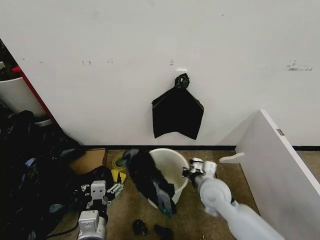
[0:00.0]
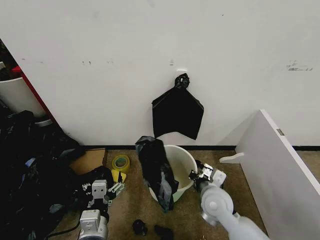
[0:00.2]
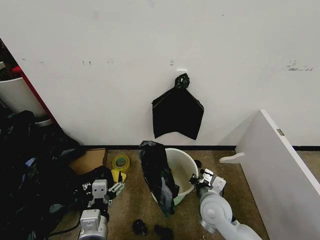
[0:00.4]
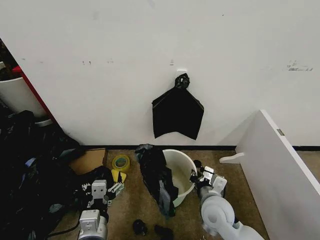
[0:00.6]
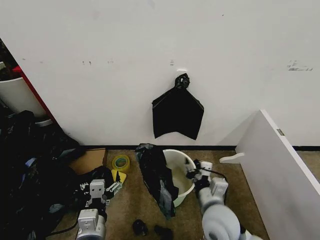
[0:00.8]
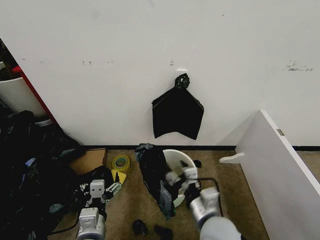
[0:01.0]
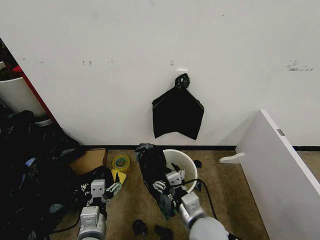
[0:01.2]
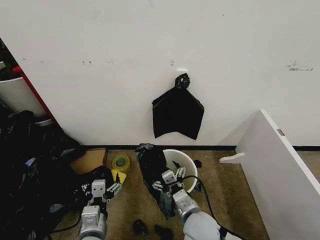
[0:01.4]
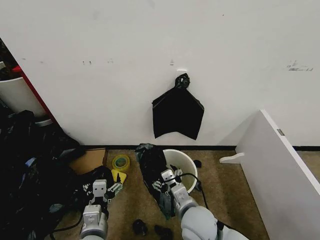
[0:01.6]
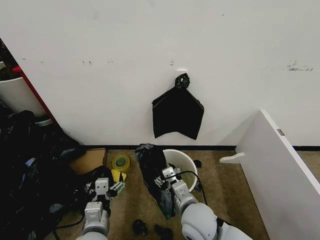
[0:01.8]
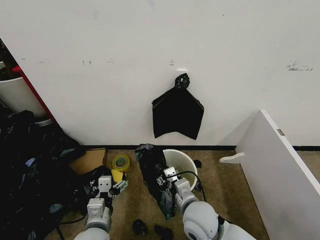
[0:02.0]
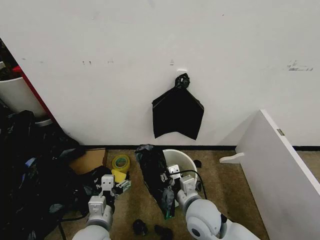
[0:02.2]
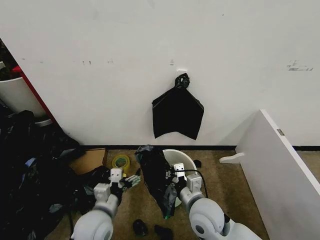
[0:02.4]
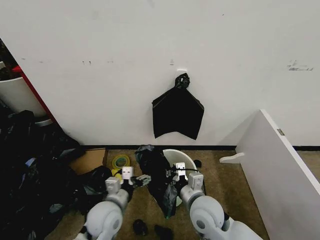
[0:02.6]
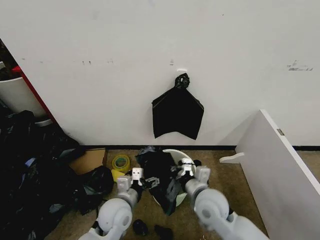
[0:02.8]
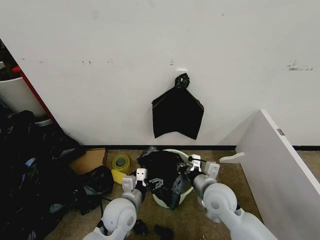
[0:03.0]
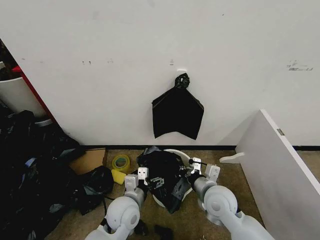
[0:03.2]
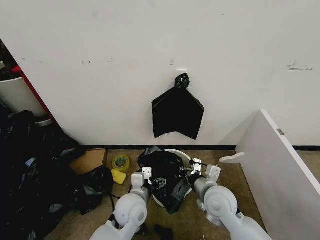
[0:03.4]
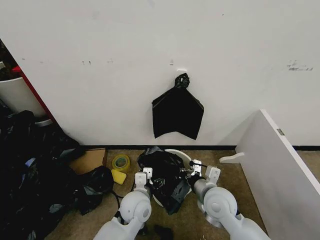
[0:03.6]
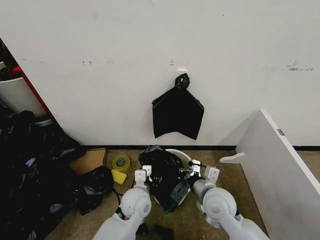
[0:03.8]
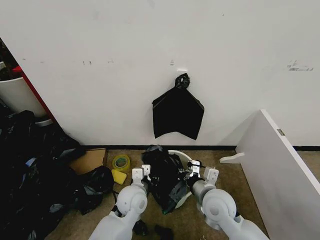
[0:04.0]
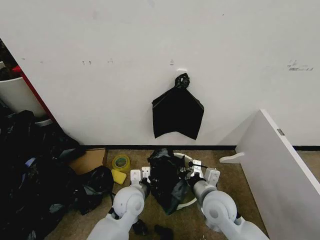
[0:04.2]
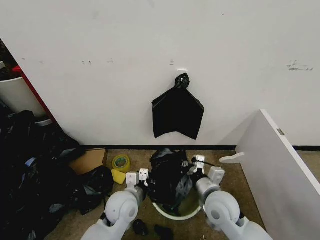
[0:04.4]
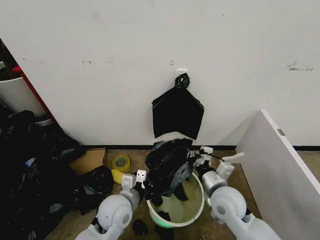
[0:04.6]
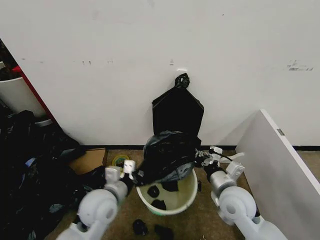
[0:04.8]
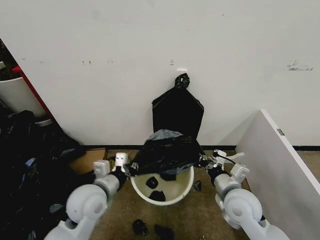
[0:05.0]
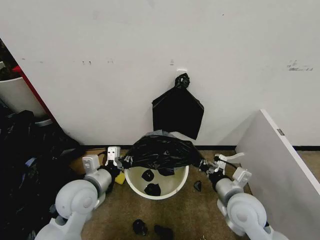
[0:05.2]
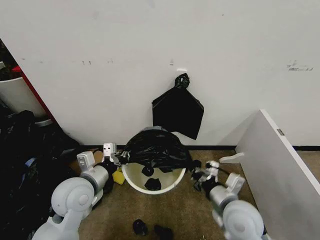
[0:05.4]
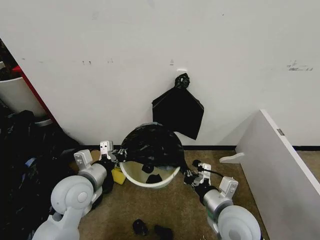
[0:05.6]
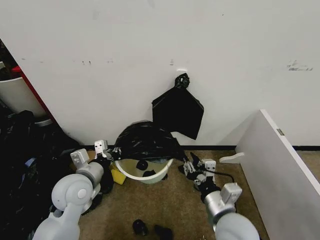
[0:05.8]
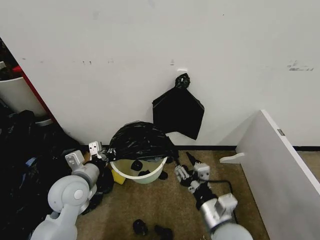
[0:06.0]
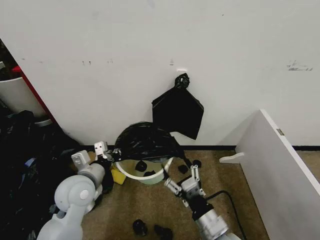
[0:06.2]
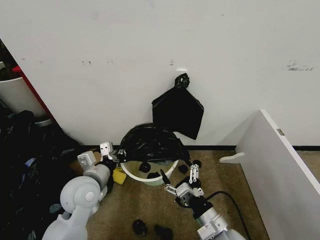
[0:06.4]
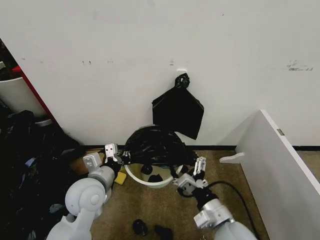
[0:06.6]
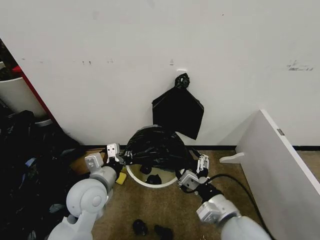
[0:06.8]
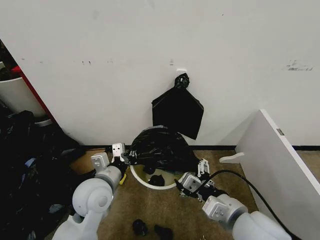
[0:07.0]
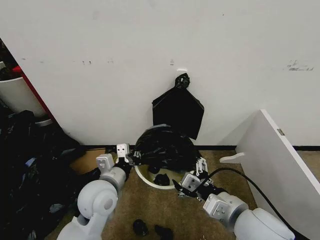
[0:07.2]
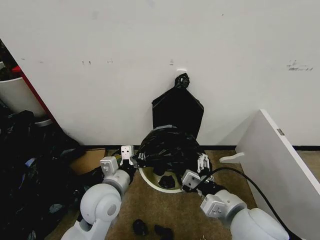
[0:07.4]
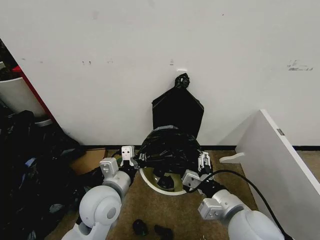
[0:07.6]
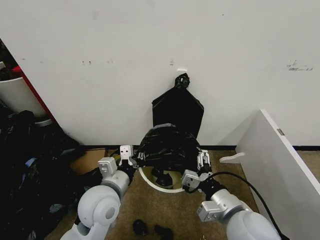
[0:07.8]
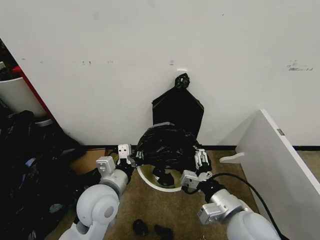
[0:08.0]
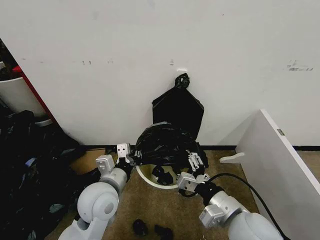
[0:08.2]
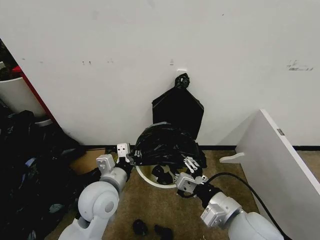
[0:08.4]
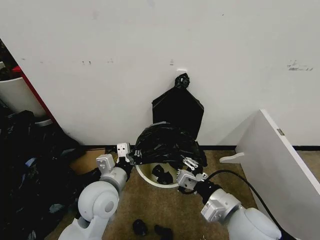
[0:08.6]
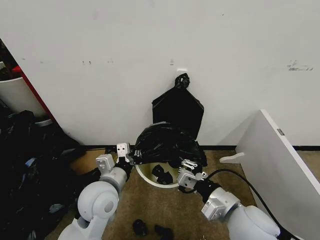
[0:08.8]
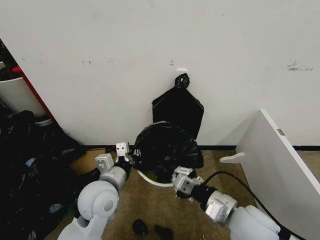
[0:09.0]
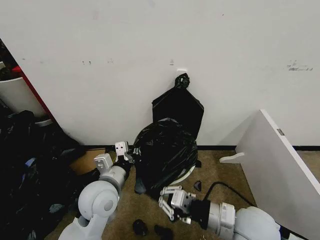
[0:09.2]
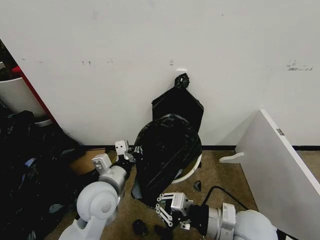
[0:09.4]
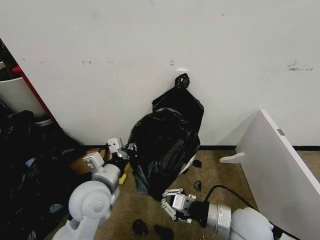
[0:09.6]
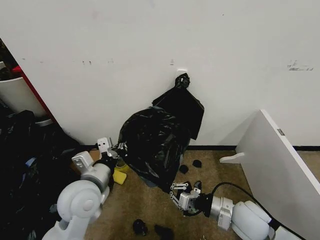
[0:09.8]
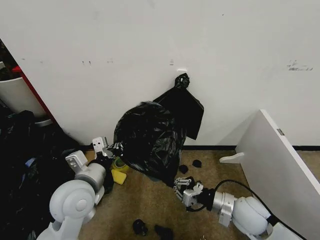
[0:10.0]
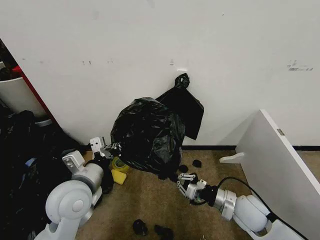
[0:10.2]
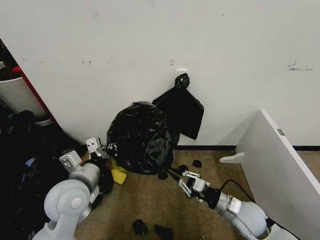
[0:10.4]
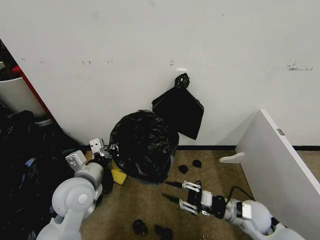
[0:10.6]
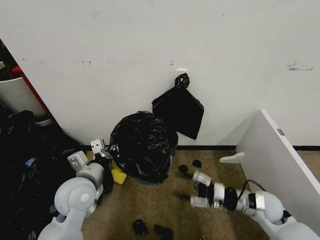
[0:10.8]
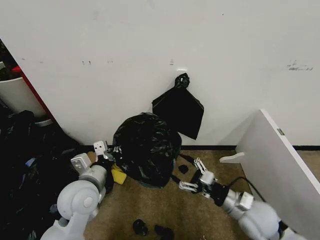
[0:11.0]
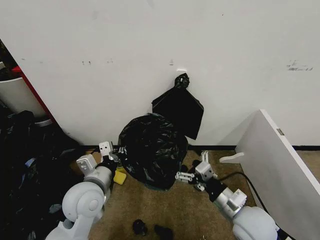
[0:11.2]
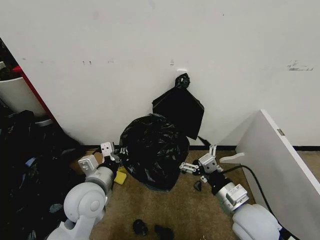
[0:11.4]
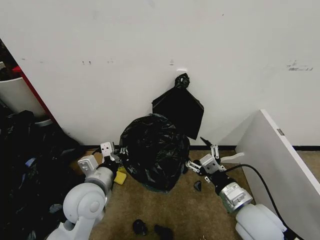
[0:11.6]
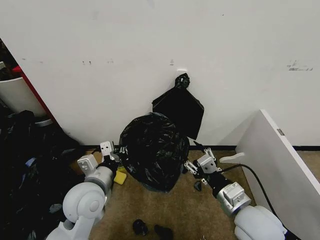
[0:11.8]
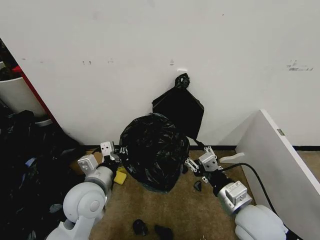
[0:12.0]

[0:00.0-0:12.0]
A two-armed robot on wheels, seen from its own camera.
Task of the whole recording: Place the garbage bag over the trash bin.
0:00.0 to 0:01.6: The right gripper moves backward and to the left, approximately 10 cm, and opens its fingers.
0:01.6 to 0:03.0: The left gripper goes roughly 10 cm forward and to the right, while the right gripper heads to the right and forward, covering some 10 cm, and closes up.
0:03.0 to 0:04.4: The left gripper closes its fingers.
0:04.4 to 0:06.0: The right gripper shifts approximately 10 cm backward, and opens its fingers, while the left gripper shifts roughly 15 cm to the left and upward.
0:06.0 to 0:07.6: The right gripper travels upward by about 5 cm, and opens its fingers, while the left gripper moves to the right, approximately 10 cm.
0:07.6 to 0:09.0: The right gripper closes.
0:09.0 to 0:10.4: The right gripper travels downward, to the right and forward by about 15 cm. The left gripper shifts about 5 cm to the left.
0:10.4 to 0:12.0: The right gripper goes about 15 cm upward, and opens its fingers.

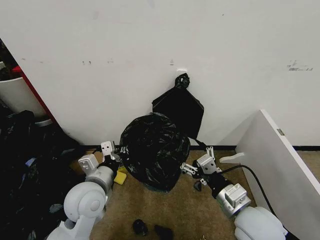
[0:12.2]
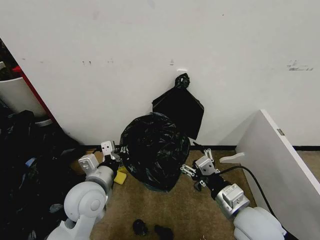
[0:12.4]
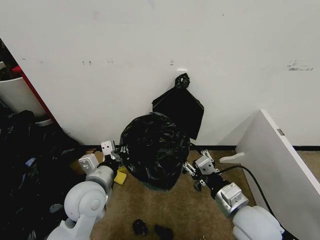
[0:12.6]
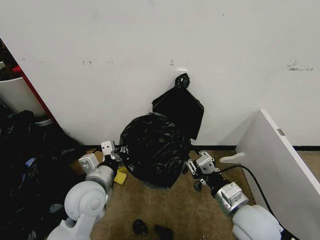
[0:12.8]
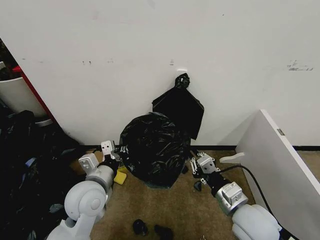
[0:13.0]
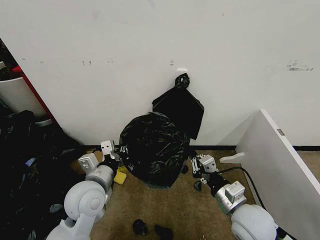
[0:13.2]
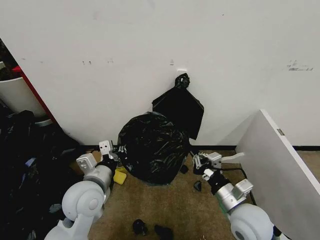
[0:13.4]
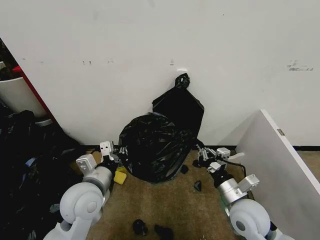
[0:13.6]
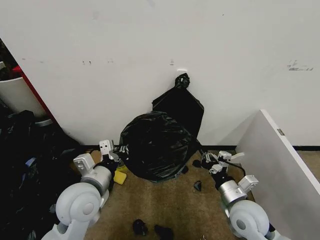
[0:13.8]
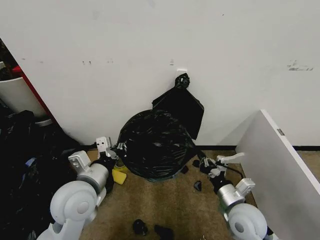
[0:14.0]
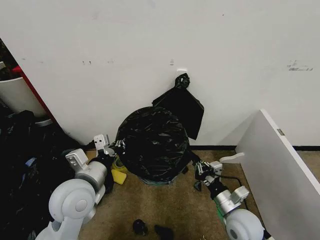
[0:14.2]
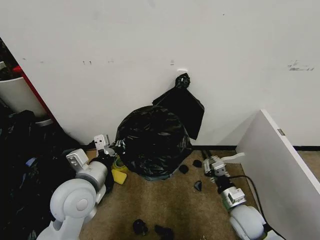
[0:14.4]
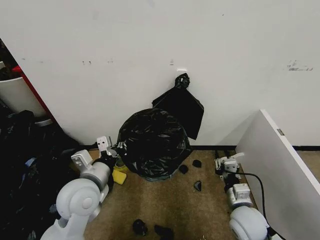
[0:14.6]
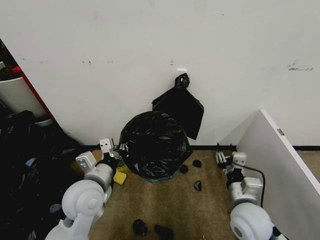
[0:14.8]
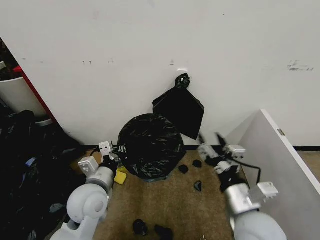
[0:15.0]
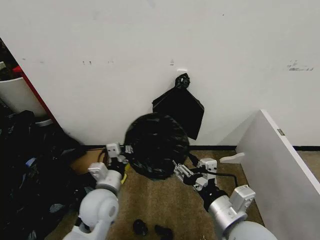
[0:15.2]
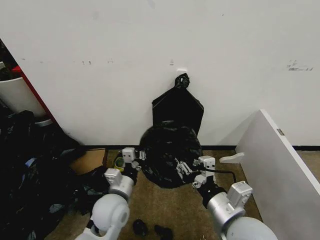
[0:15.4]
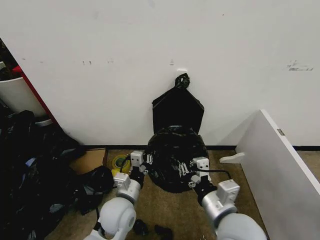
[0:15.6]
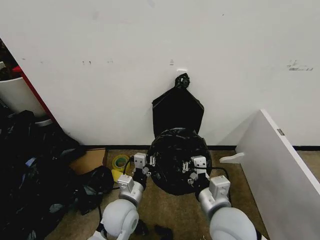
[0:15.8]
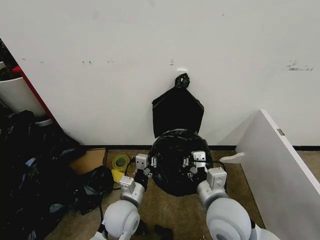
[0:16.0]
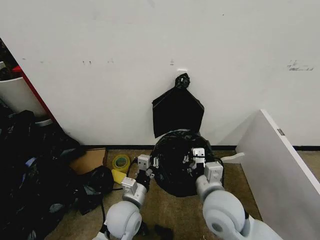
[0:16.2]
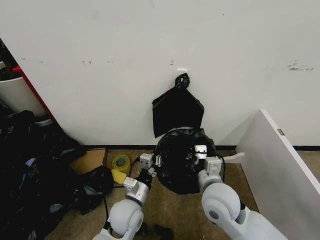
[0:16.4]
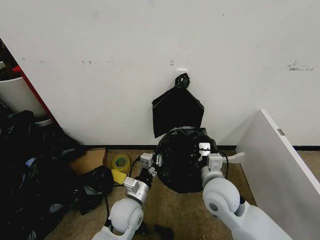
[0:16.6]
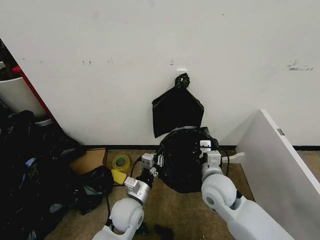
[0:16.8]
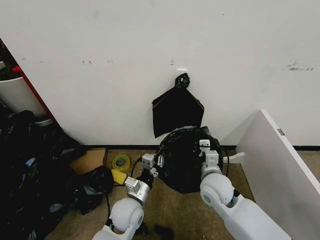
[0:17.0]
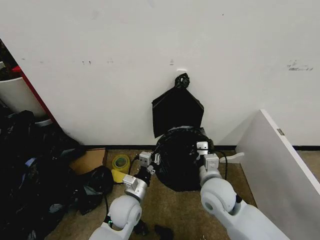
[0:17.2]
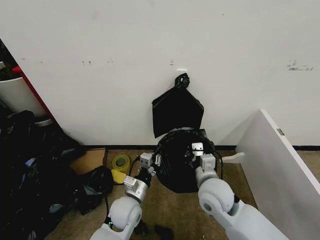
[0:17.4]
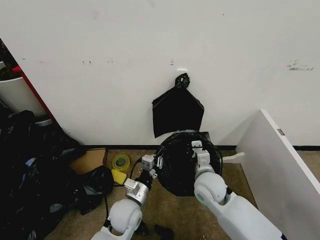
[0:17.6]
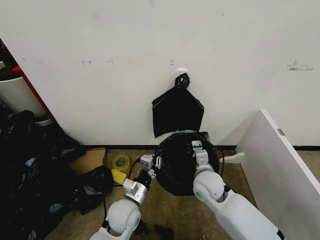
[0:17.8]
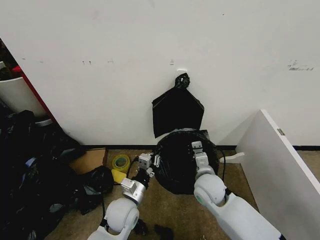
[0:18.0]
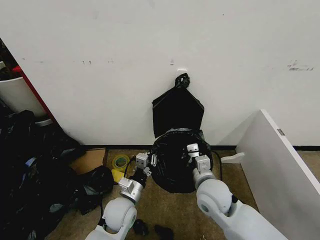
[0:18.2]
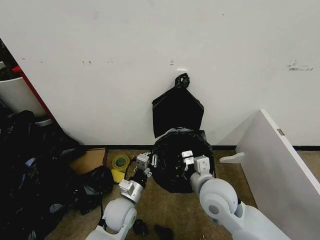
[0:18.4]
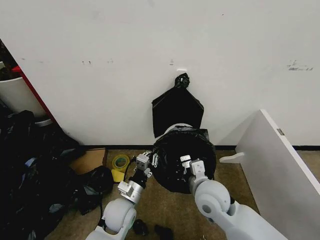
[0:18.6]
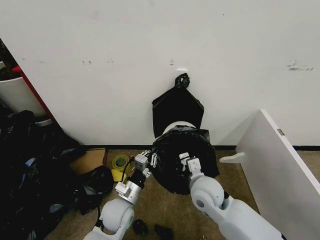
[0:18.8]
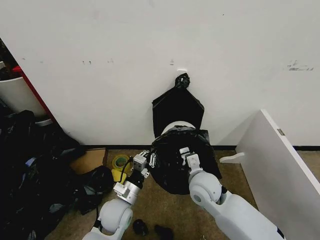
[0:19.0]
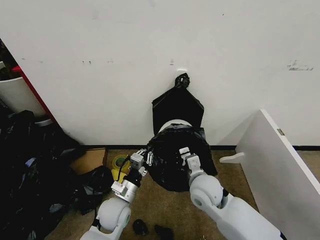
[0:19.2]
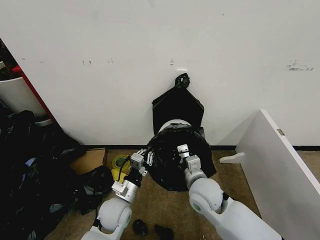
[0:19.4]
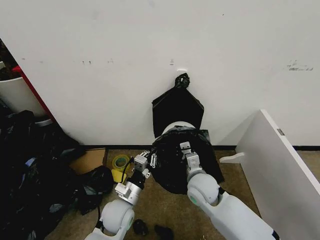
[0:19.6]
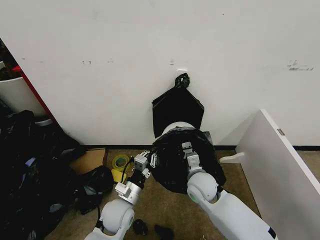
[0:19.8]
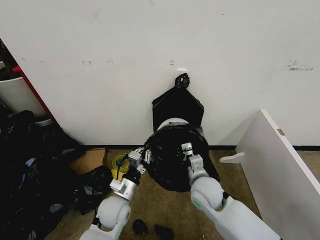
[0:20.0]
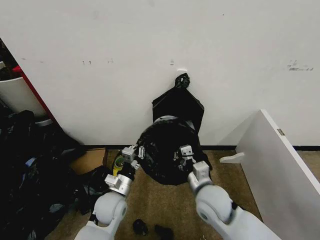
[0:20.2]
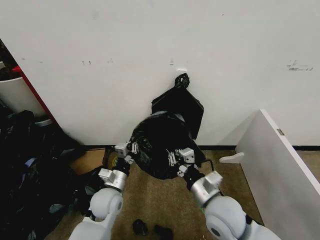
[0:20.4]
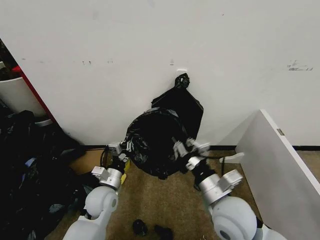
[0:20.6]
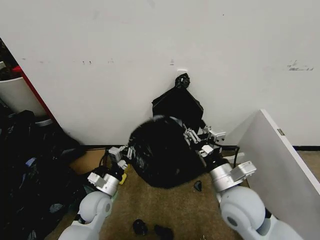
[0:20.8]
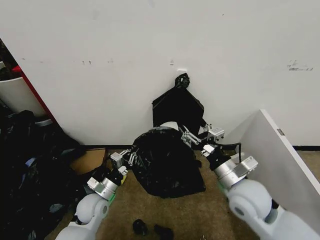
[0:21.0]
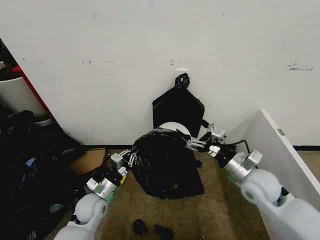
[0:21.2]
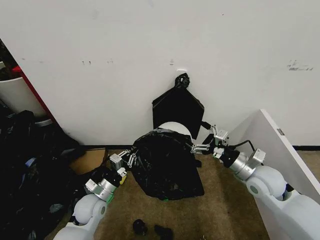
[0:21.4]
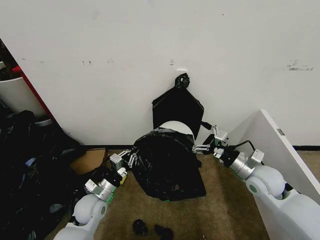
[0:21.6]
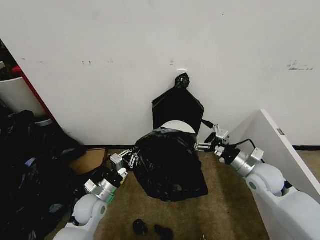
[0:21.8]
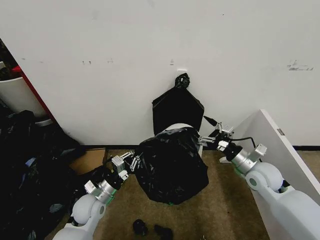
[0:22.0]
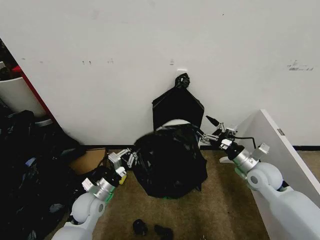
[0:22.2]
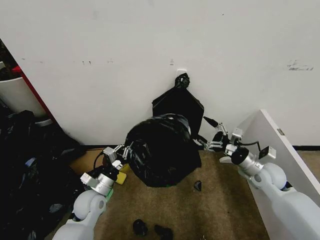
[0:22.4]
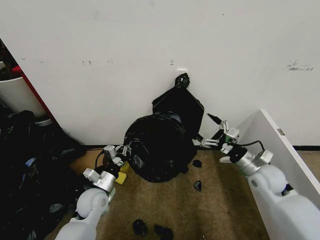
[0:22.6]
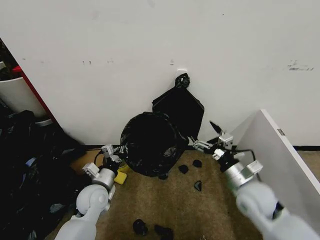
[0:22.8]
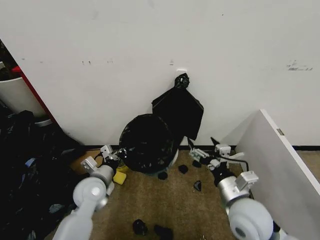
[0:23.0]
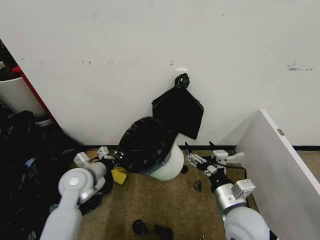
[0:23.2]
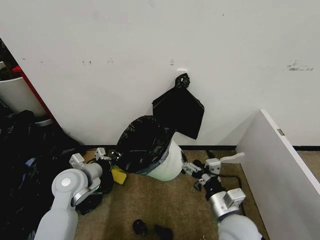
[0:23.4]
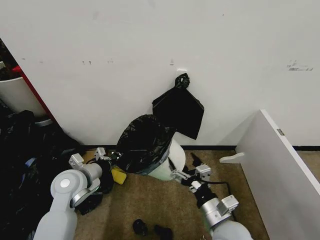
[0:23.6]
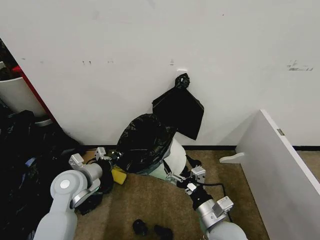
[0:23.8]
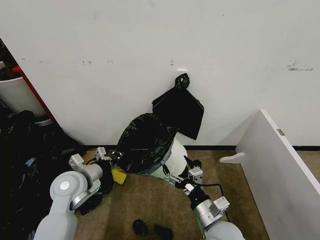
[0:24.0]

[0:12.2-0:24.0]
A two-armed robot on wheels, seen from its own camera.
Task of the whole recording: Place the garbage bag over the trash bin.
0:12.2 to 0:13.6: The right gripper moves downward, some 5 cm, and closes.
0:13.6 to 0:15.2: The right gripper heads upward, backward and to the left, covering about 15 cm, and opens its fingers.
0:15.2 to 0:16.6: The left gripper travels downward and to the right by some 10 cm. Meanwhile the right gripper is displaced forward by about 10 cm, and closes.
0:18.2 to 0:19.6: The right gripper changes place by roughly 5 cm.
0:19.6 to 0:21.0: The left gripper moves to the left, some 10 cm. The right gripper shifts roughly 15 cm upward, to the right and backward, and opens its fingers.
0:21.0 to 0:22.6: The right gripper moves to the right, forward and downward, roughly 15 cm.
0:22.6 to 0:24.0: The left gripper moves upward, roughly 10 cm. The right gripper heads to the left and backward, covering some 25 cm.
